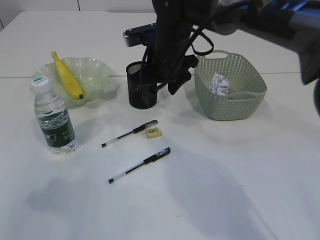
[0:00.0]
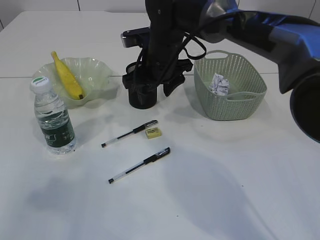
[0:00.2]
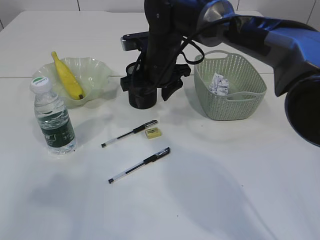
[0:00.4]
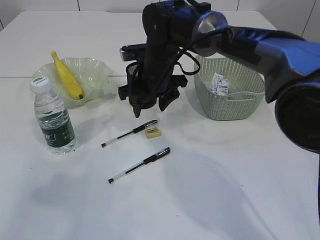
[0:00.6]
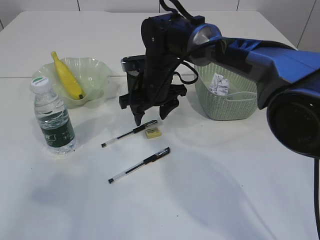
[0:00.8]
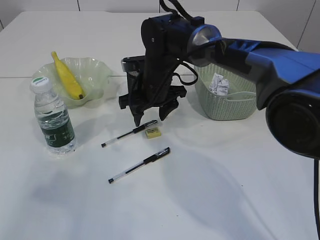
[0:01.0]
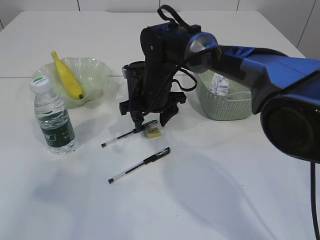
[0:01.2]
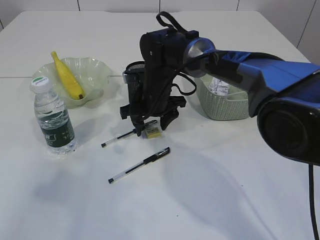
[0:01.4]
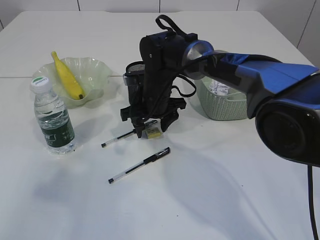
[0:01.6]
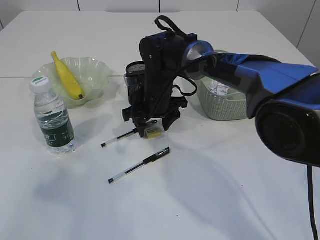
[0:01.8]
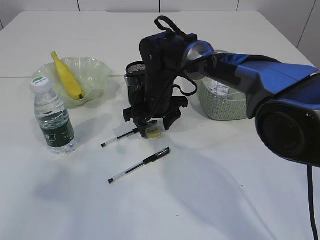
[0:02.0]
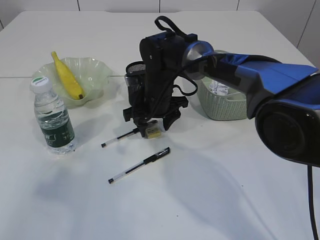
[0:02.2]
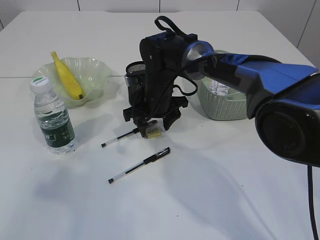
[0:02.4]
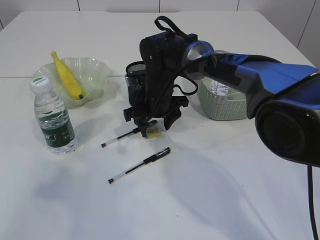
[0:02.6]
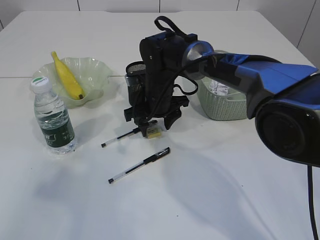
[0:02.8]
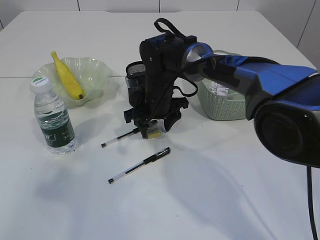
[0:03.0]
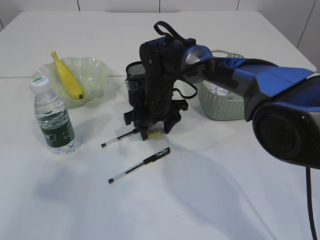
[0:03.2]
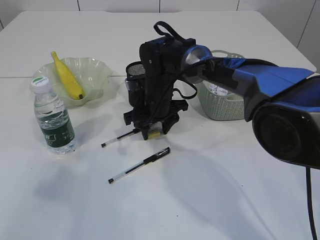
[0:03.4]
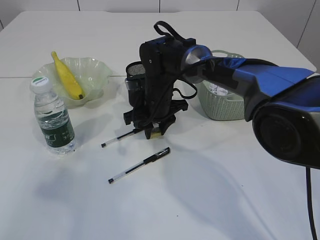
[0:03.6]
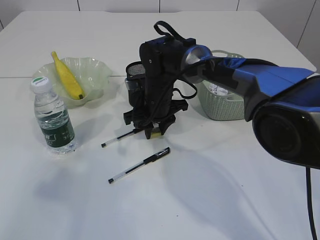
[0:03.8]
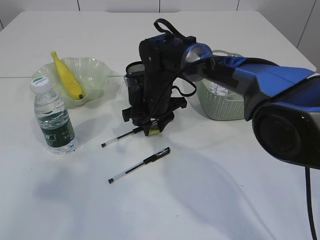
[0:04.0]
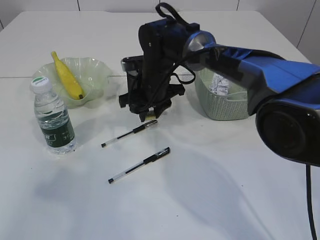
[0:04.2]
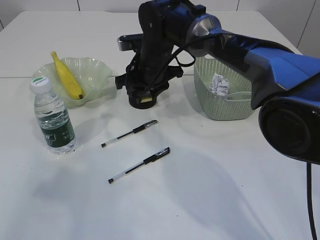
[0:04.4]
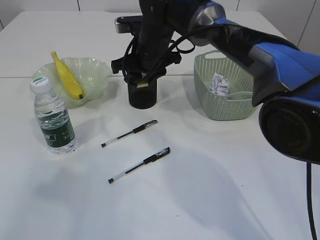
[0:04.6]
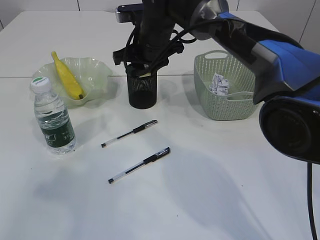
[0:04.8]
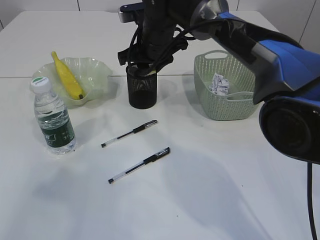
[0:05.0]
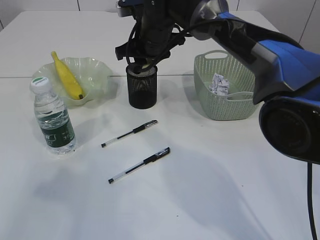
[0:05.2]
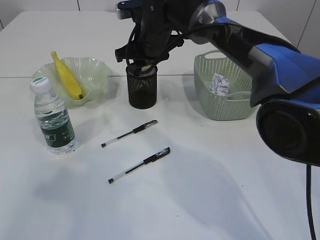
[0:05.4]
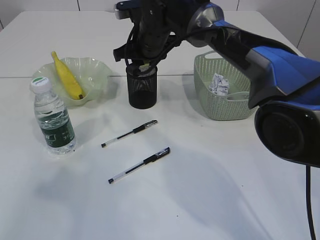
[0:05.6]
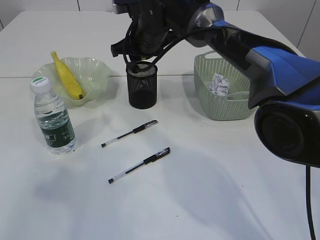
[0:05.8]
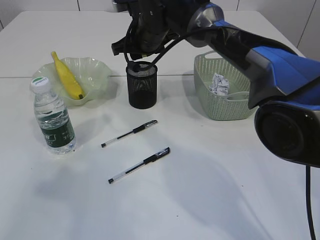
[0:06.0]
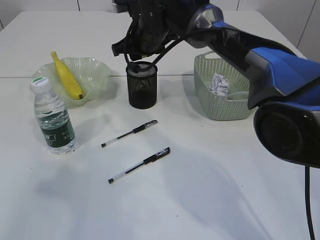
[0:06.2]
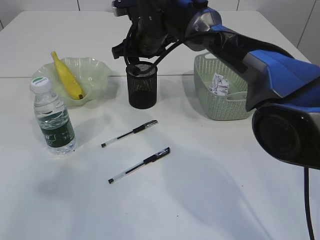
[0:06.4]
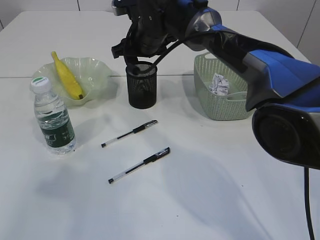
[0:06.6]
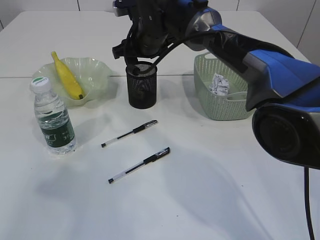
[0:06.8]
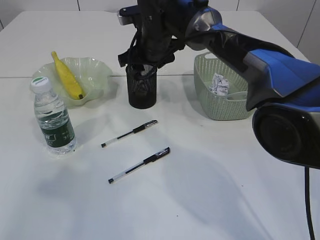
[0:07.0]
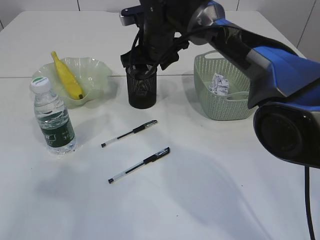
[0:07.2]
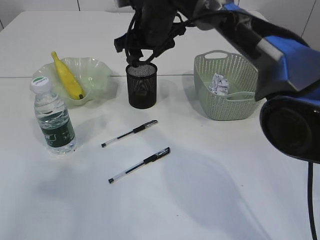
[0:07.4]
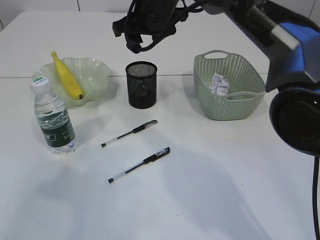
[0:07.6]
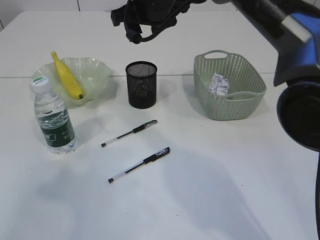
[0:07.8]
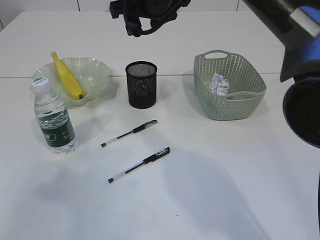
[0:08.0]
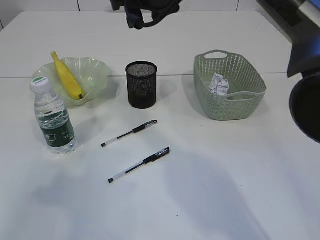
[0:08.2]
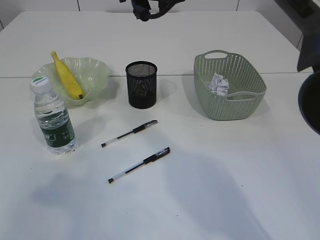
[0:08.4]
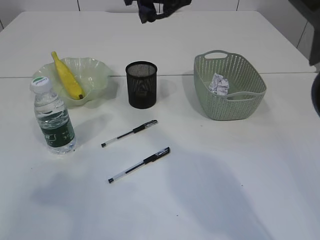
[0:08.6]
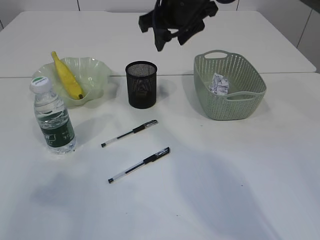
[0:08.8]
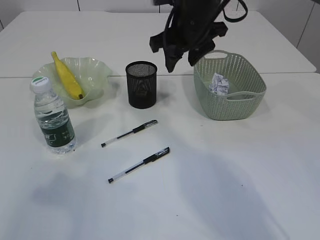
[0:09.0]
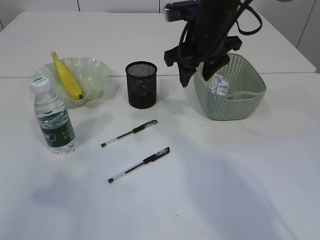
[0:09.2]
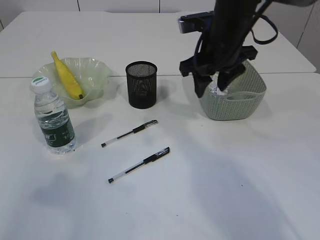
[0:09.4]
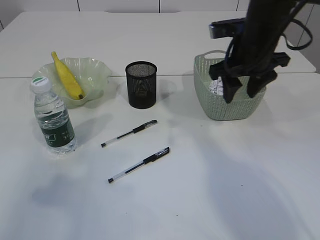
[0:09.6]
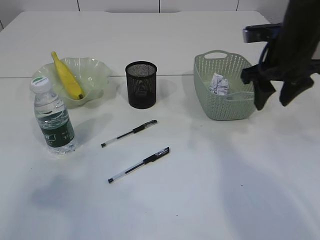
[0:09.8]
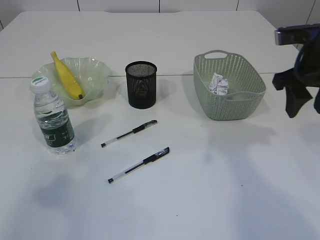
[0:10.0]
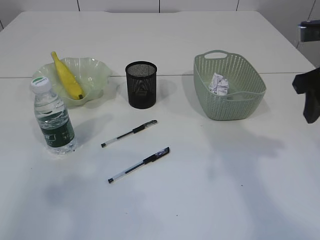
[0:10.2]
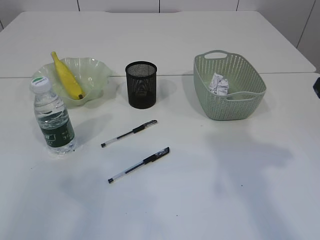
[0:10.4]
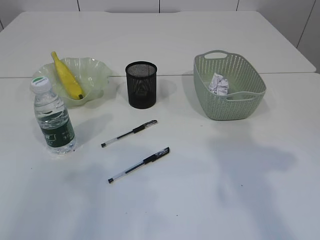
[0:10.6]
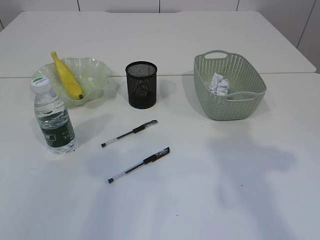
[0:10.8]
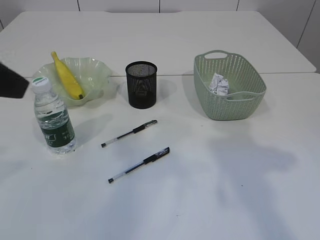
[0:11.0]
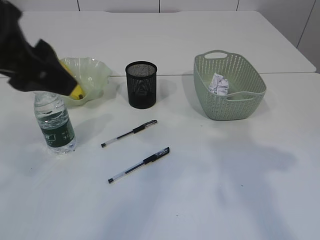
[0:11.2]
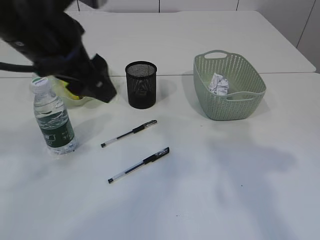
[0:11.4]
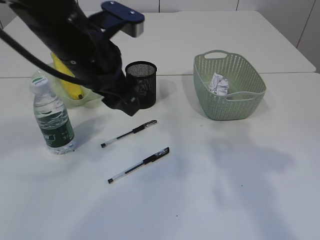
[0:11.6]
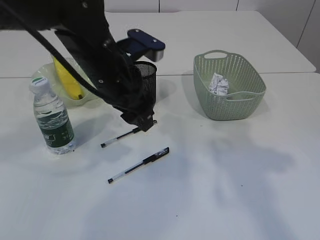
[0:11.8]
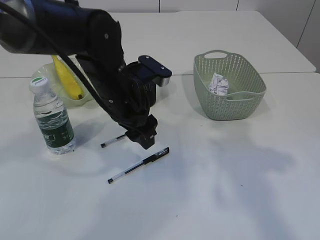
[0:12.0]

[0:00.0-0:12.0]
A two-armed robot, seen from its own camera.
Step, 0:00.0 to 0:04.2: Pick up the eraser.
Step, 0:04.4 to 0:07.4: Place the eraser into the pen holder.
0:00.0 to 0:01.6: The right gripper travels downward by about 10 cm.
0:01.6 to 0:03.0: Both grippers stay about where they are.
0:03.0 to 0:04.4: The right gripper moves upward, about 5 cm, and closes.
0:04.4 to 0:06.0: The right gripper moves roughly 5 cm.
0:06.0 to 0:07.6: The right gripper shifts roughly 5 cm upward.
0:07.6 to 0:09.0: The right gripper heads to the right, covering roughly 5 cm.
0:09.0 to 0:10.4: The right gripper goes some 25 cm to the right and backward.
0:10.4 to 0:12.0: The left gripper heads forward, to the right and downward, covering approximately 35 cm.

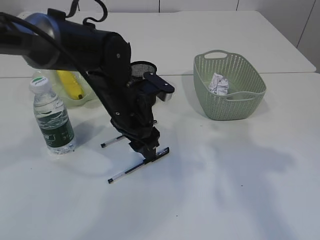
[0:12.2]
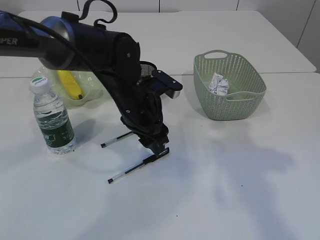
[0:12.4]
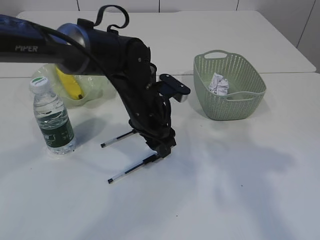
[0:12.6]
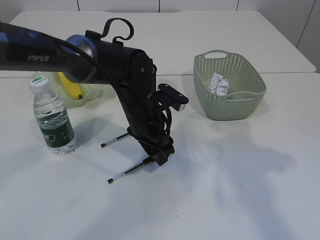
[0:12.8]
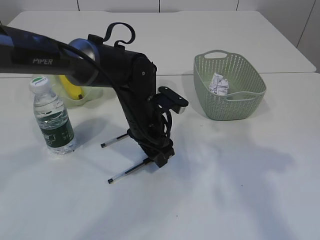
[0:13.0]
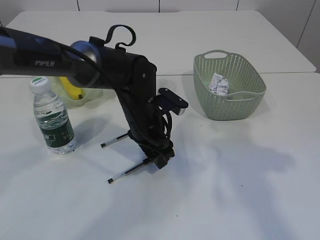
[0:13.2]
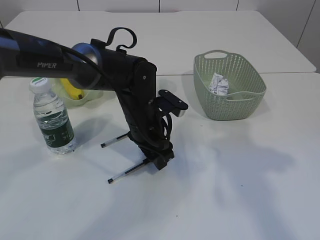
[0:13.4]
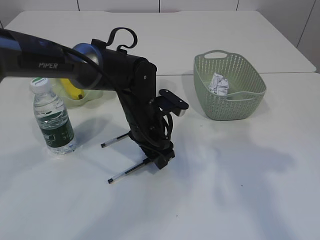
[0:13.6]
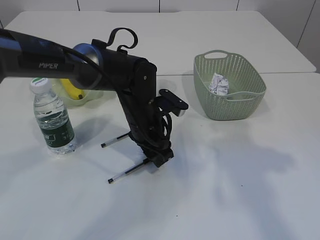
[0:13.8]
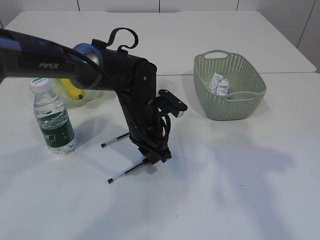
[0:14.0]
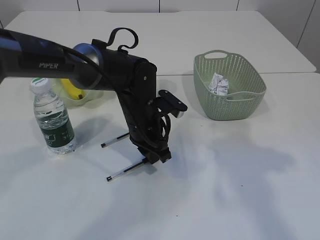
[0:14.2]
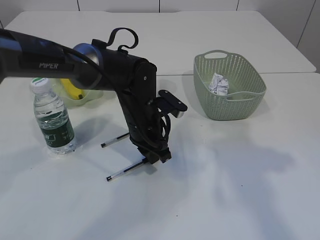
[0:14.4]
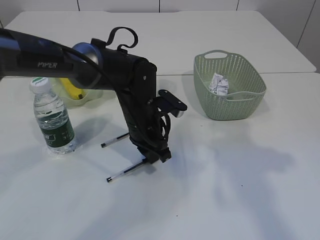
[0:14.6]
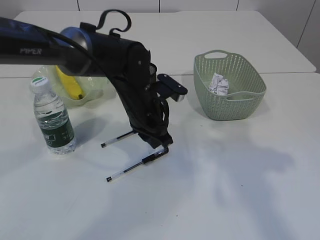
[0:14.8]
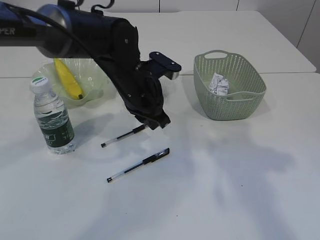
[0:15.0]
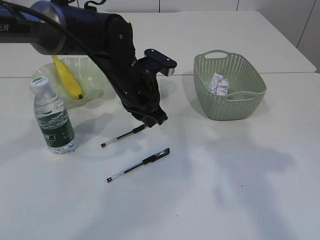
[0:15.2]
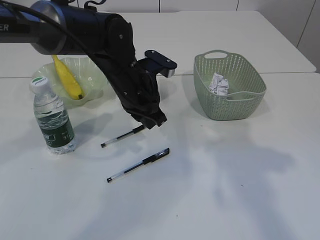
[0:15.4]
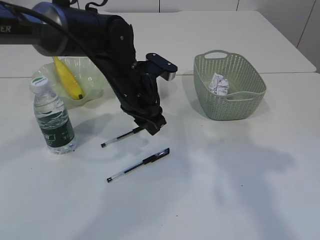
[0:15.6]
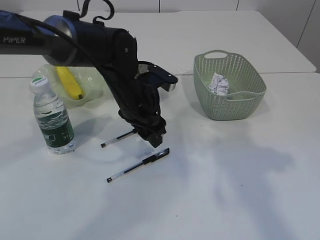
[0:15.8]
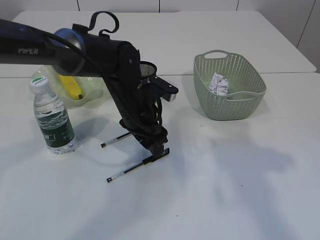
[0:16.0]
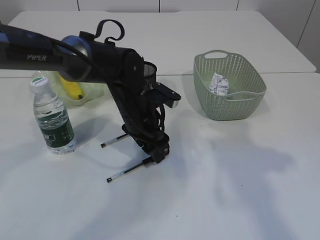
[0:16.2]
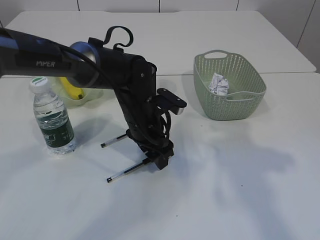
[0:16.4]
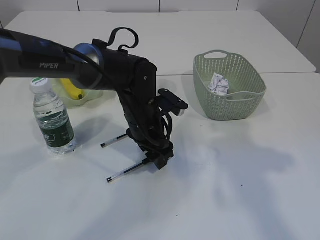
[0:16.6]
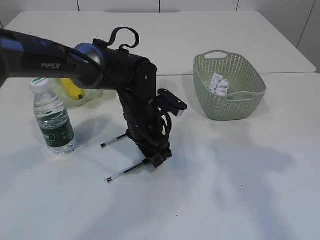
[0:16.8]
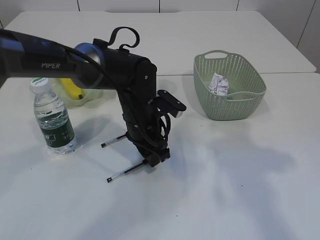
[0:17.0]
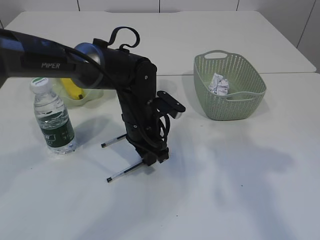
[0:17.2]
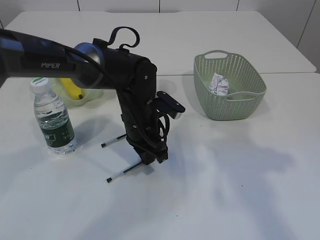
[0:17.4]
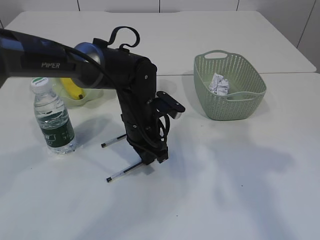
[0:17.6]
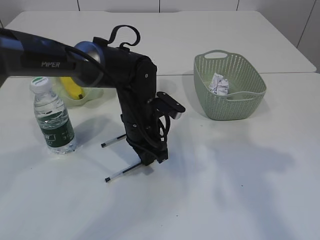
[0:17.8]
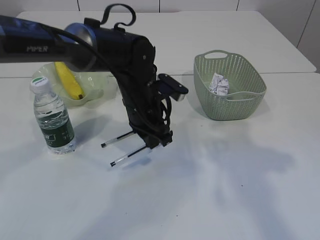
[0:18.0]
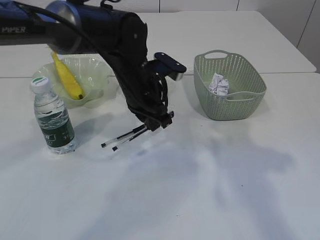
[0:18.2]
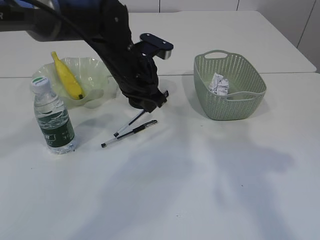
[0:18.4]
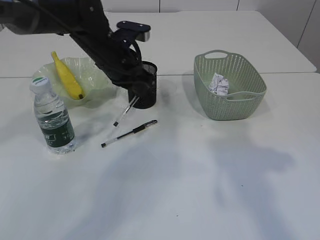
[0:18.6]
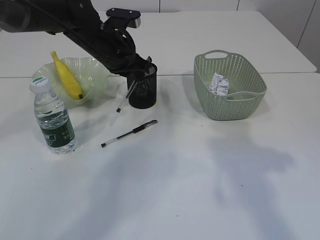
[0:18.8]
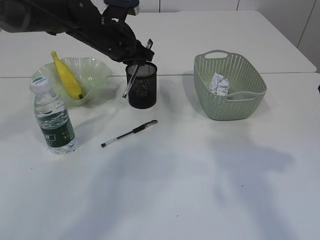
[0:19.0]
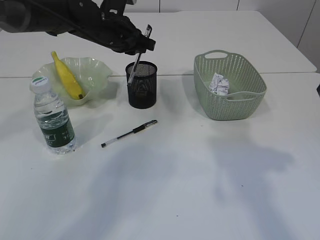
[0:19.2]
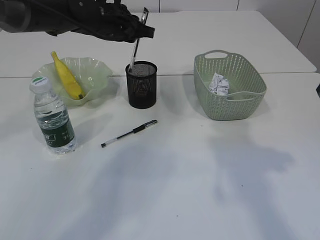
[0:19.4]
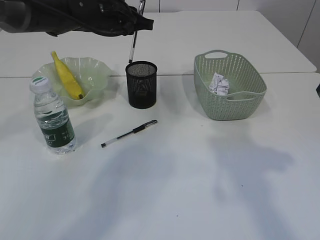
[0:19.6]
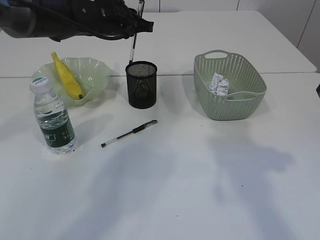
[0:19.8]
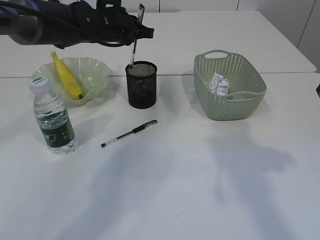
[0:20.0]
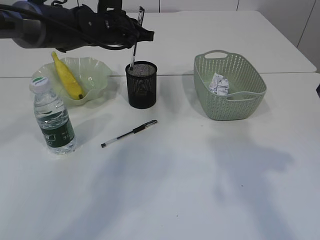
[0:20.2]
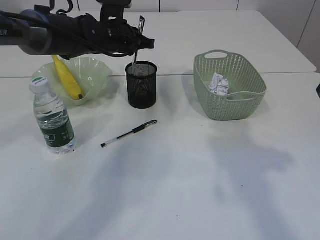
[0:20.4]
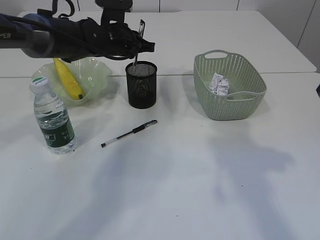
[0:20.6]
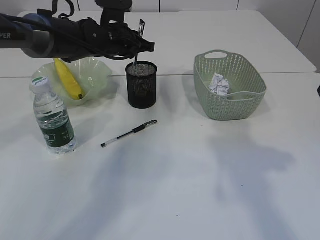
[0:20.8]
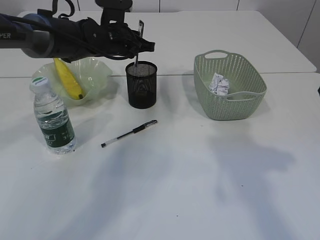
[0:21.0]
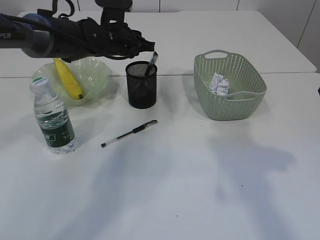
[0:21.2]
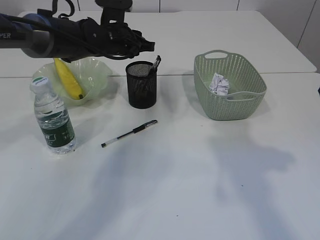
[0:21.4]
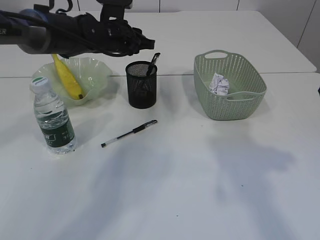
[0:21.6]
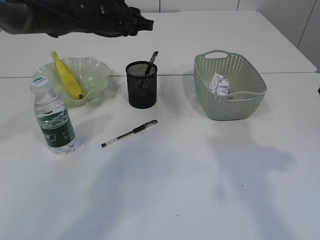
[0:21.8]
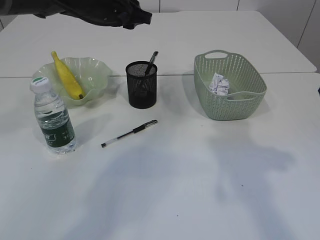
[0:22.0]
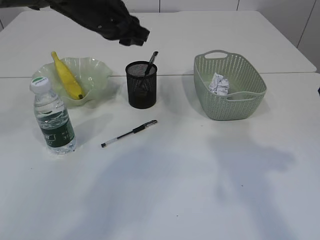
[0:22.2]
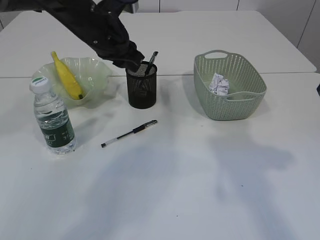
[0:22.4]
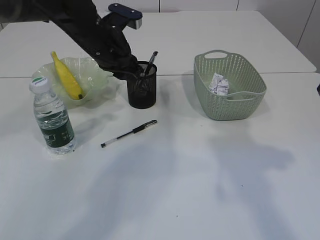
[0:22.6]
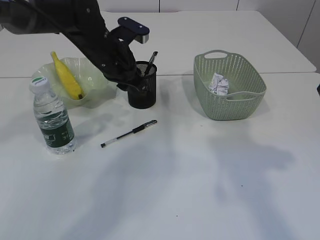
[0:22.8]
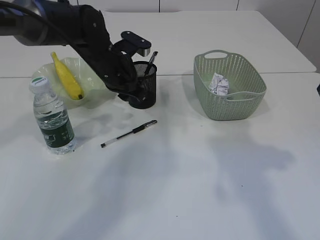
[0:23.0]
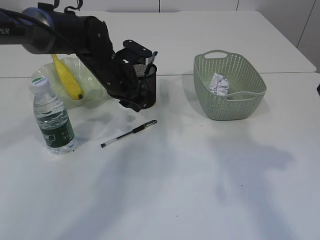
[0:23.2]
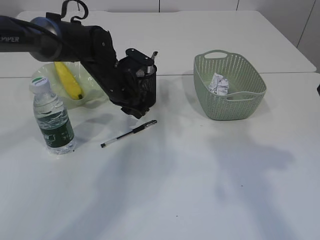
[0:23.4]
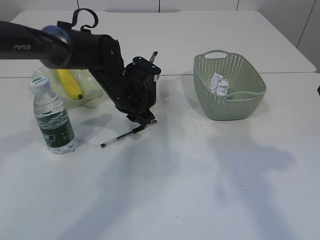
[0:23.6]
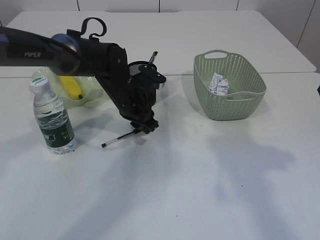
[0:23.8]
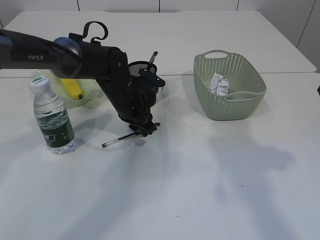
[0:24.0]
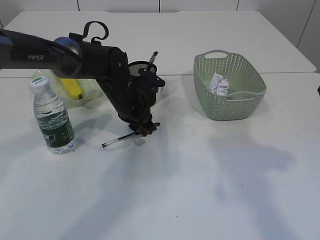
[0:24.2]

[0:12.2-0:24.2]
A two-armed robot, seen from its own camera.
Step, 0:12.2 to 0:18.4: Pick up the pen with left arm.
Step, 0:18.6 to 0:21.6: Place the pen into the pen holder.
0:12.2 to 0:13.8: The left gripper changes place by about 5 cm.
0:13.8 to 0:15.2: The left gripper goes about 5 cm upward, and closes its fingers.
0:15.2 to 0:16.6: The left gripper goes roughly 5 cm downward, and opens up.
0:16.6 to 0:18.2: The left gripper shifts approximately 5 cm upward, and closes.
0:18.2 to 0:19.8: The left gripper shifts approximately 15 cm forward, to the left and upward.
0:19.8 to 0:21.2: The grippers stay close to where they were, moving slightly.
0:21.2 to 0:22.6: The left gripper is displaced backward by roughly 5 cm, and travels upward and back again, about 10 cm each way.
0:22.6 to 0:24.2: The left gripper shifts approximately 10 cm downward.
